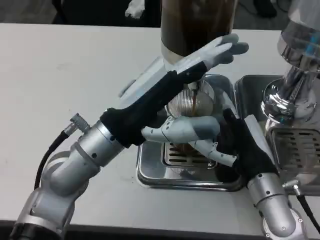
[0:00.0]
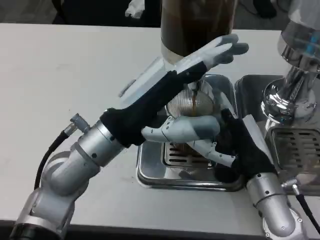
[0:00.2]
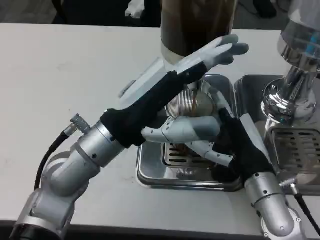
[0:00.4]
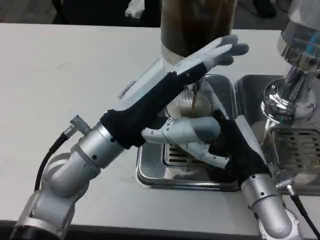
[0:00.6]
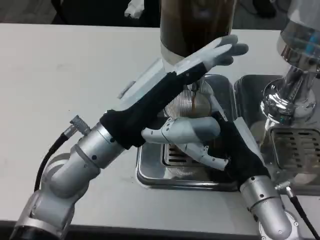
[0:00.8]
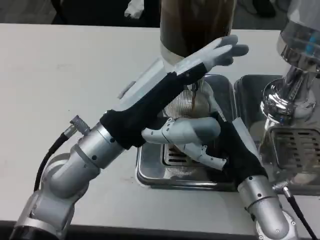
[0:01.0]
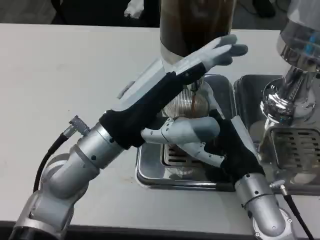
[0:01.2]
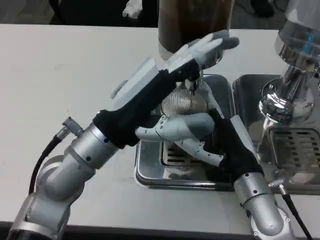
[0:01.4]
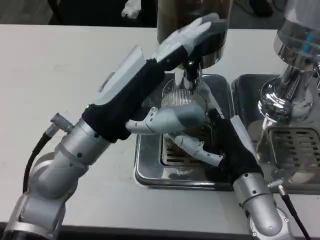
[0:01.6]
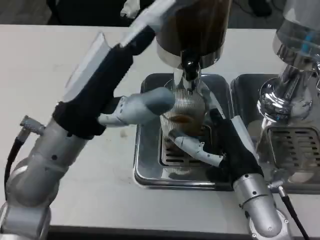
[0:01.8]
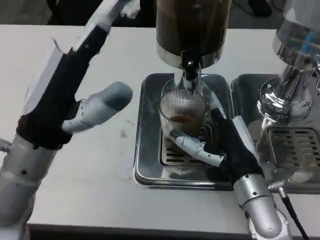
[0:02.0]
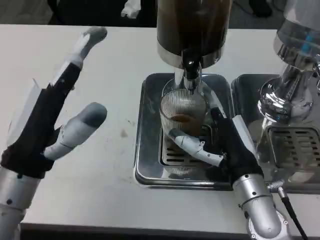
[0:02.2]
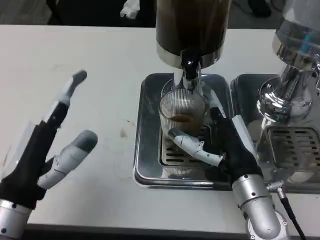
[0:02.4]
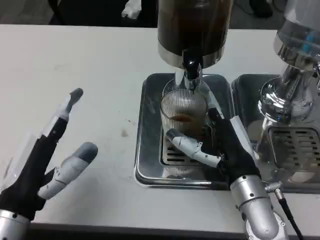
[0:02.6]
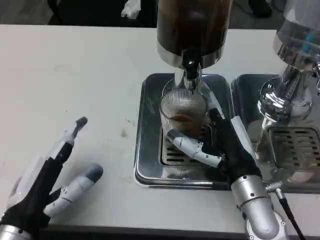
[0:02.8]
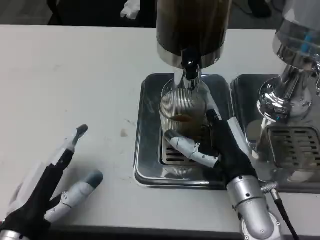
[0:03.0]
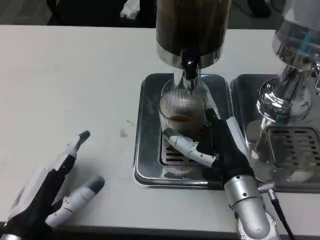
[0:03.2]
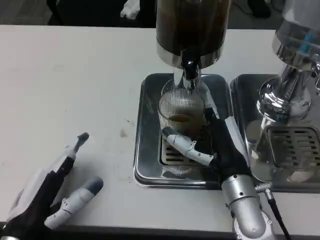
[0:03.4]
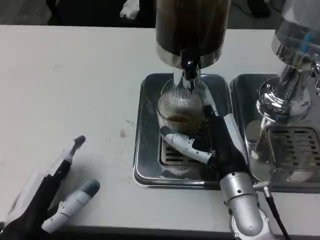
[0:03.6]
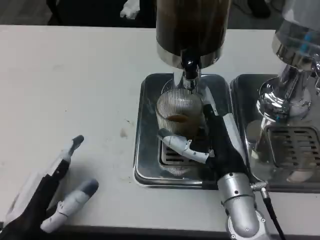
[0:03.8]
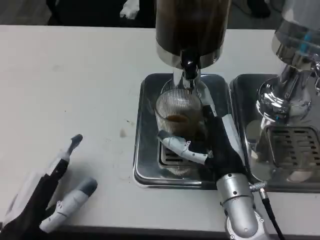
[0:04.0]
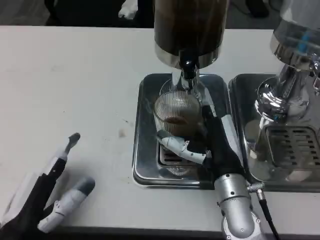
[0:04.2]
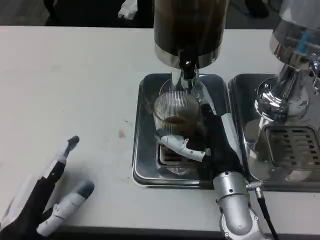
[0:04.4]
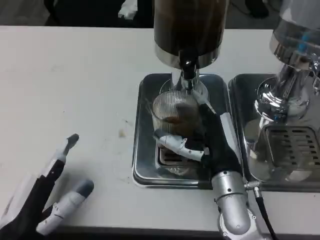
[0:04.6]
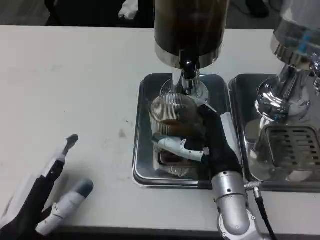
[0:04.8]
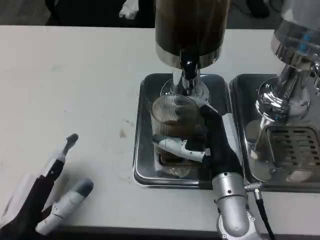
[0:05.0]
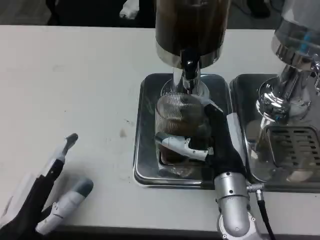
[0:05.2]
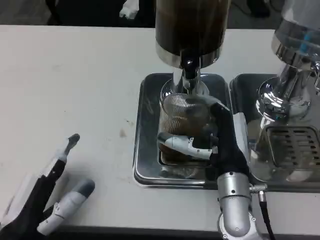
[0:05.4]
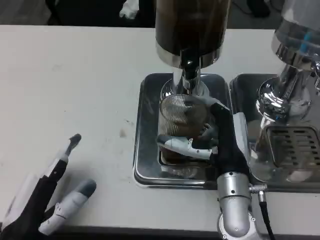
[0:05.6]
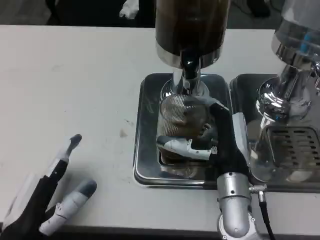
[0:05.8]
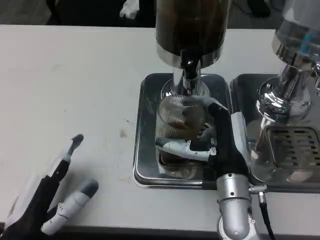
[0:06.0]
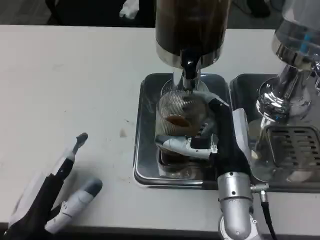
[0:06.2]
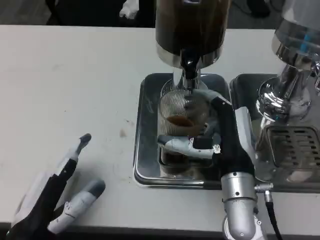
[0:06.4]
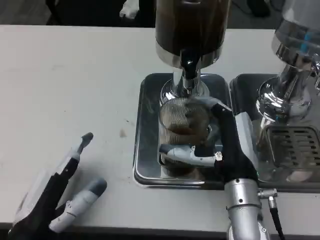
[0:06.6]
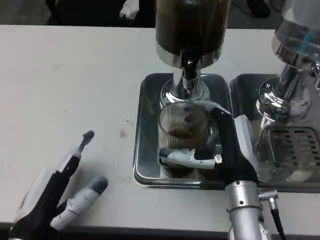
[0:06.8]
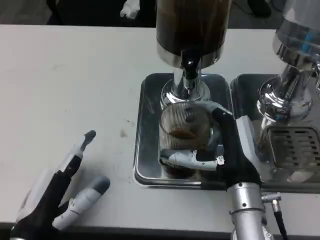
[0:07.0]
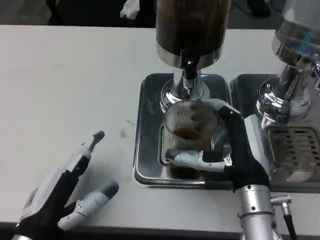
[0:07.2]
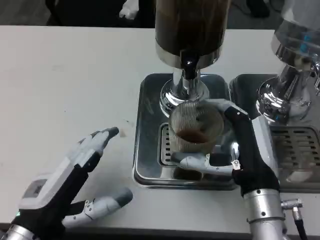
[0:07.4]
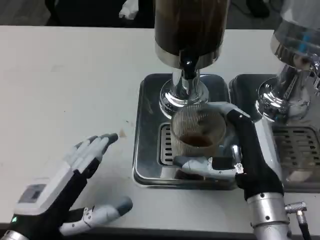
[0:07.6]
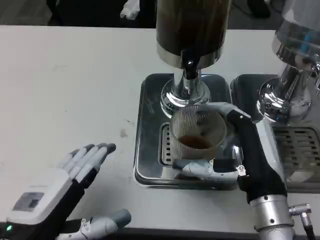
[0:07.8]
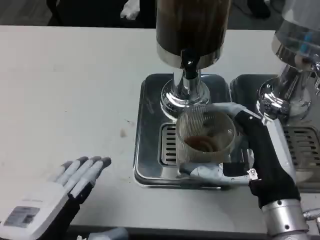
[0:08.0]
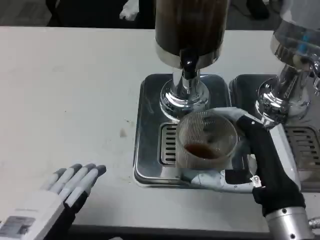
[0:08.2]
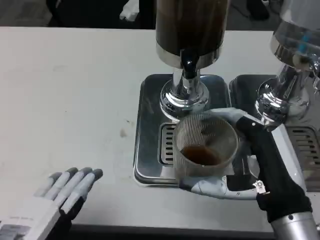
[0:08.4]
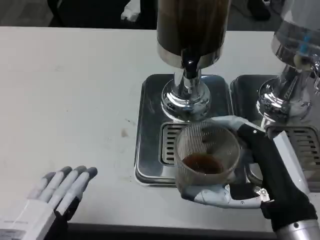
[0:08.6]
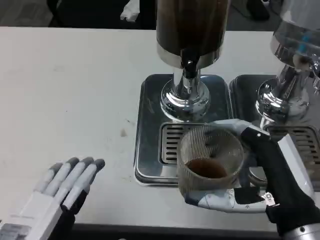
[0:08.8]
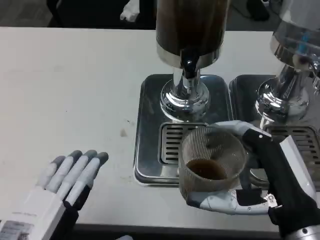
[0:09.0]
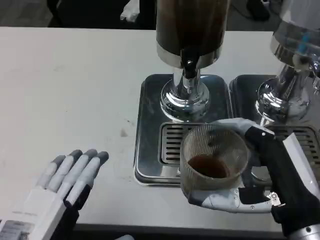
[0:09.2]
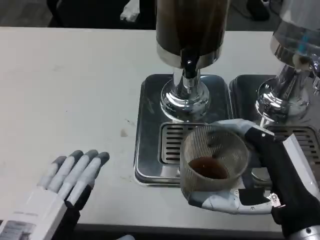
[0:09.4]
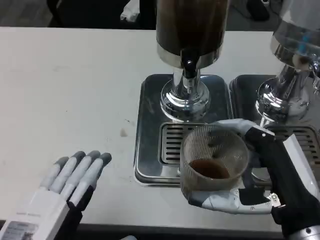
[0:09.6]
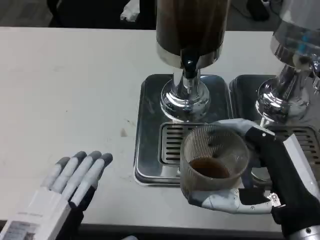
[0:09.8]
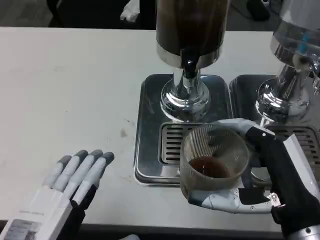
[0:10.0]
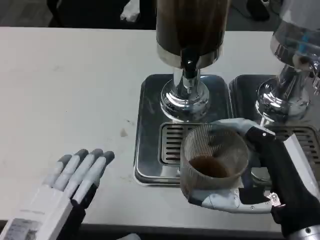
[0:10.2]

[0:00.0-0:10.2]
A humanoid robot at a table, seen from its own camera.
Task of the whole recording: Grasp the cup under the faucet to collect the drink, then remove the cup.
0:01.4 to 0:03.0: The left hand moves backward, downward and to the left, approximately 20 cm.
0:04.4 to 0:07.2: There are only small adjustments of the hands.
0:07.2 to 0:08.8: The left hand is displaced backward and upward by about 10 cm. The right hand goes some 10 cm backward.
0:08.8 to 0:10.2: The two hands keep their place.
